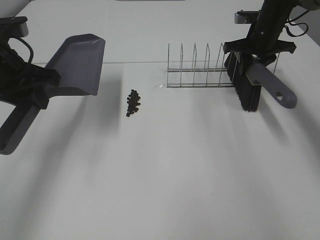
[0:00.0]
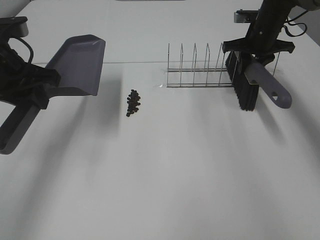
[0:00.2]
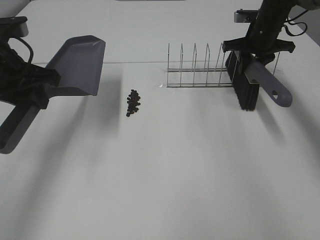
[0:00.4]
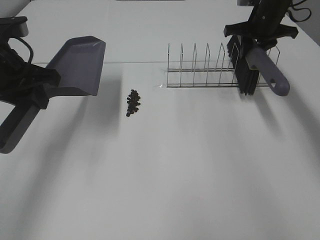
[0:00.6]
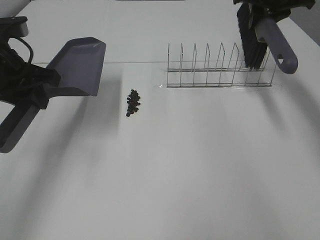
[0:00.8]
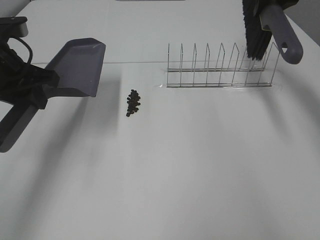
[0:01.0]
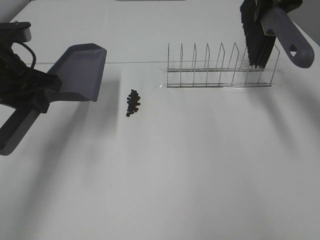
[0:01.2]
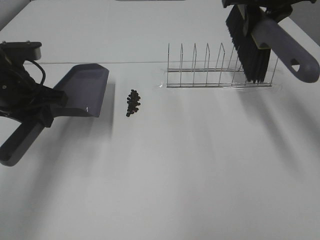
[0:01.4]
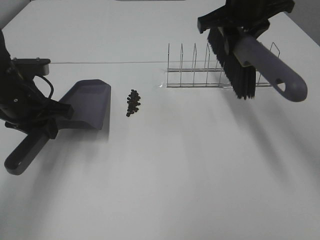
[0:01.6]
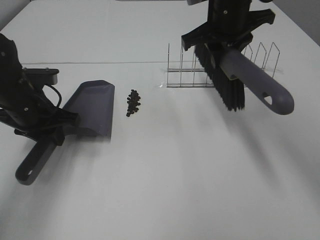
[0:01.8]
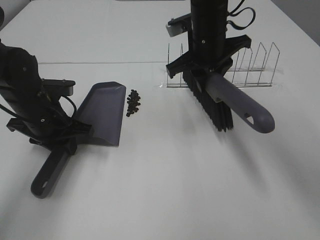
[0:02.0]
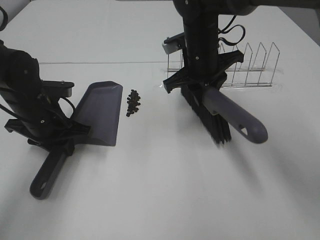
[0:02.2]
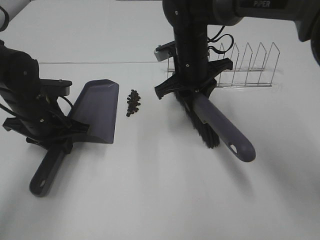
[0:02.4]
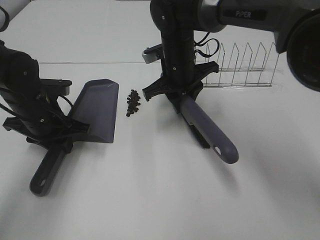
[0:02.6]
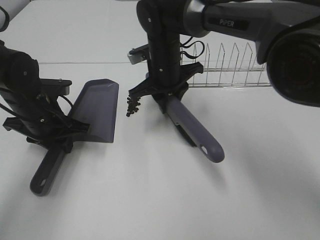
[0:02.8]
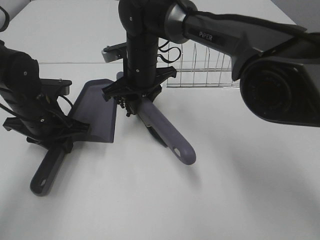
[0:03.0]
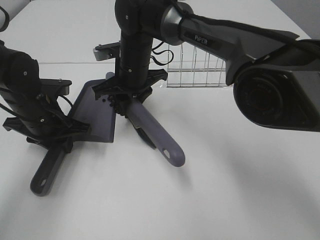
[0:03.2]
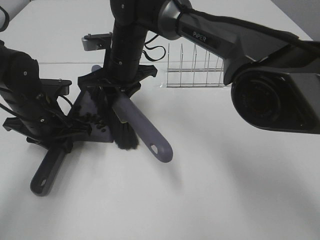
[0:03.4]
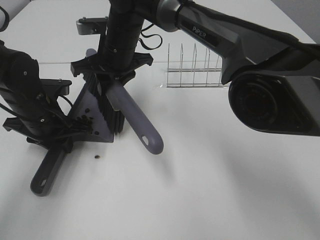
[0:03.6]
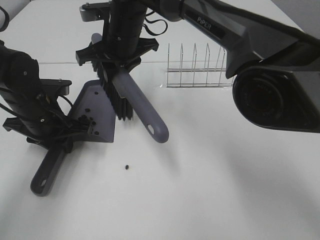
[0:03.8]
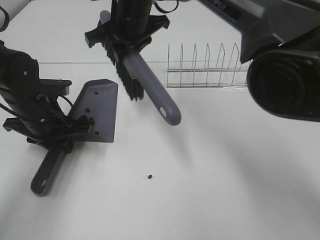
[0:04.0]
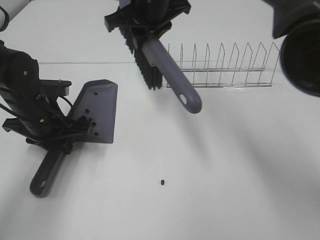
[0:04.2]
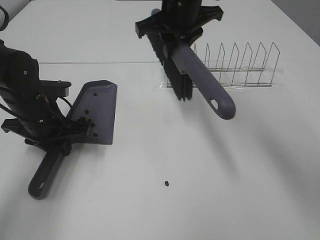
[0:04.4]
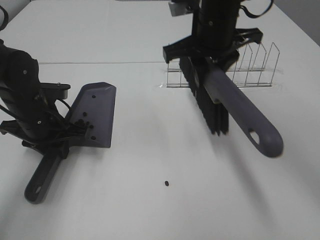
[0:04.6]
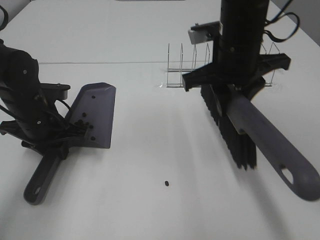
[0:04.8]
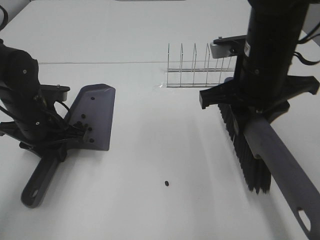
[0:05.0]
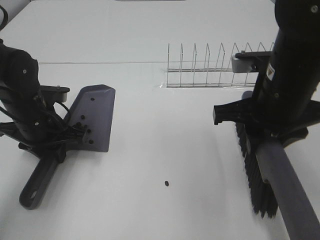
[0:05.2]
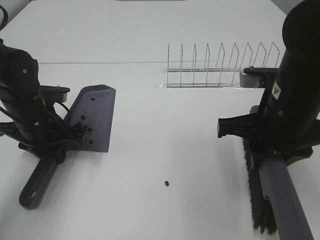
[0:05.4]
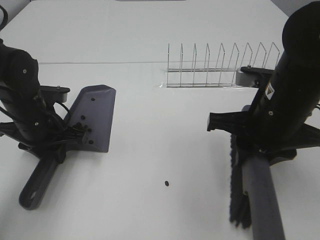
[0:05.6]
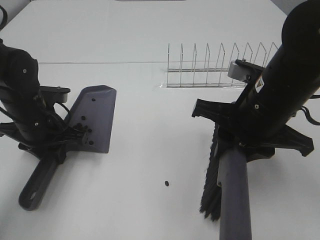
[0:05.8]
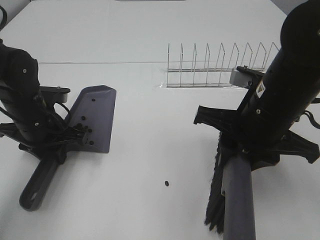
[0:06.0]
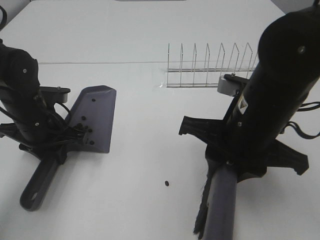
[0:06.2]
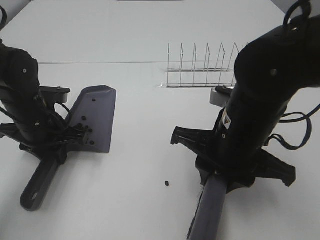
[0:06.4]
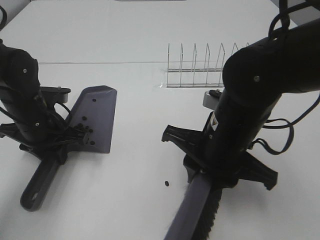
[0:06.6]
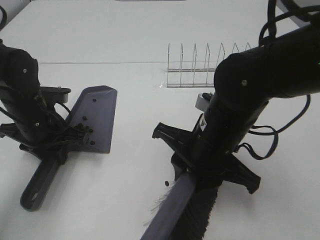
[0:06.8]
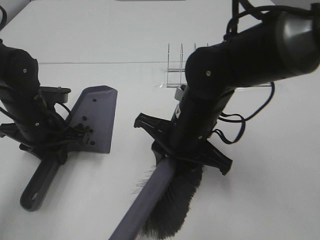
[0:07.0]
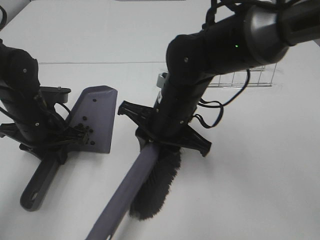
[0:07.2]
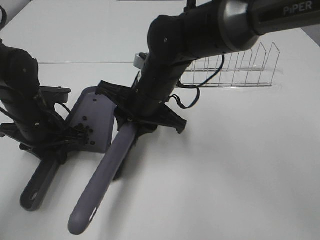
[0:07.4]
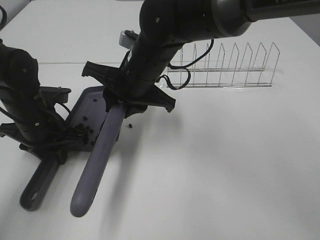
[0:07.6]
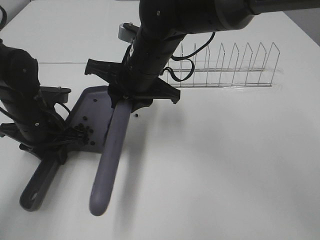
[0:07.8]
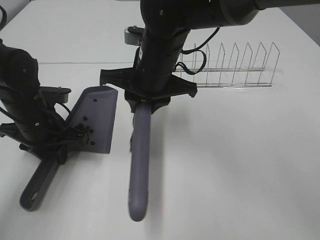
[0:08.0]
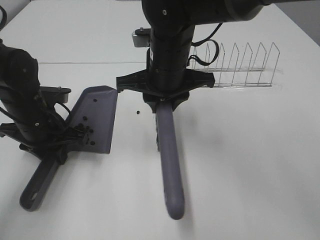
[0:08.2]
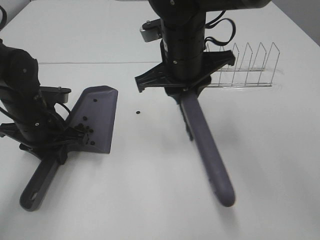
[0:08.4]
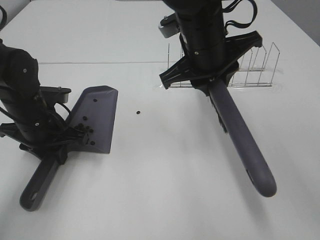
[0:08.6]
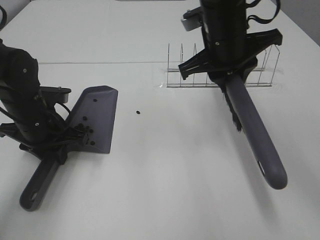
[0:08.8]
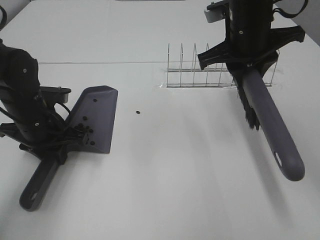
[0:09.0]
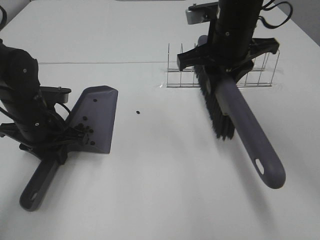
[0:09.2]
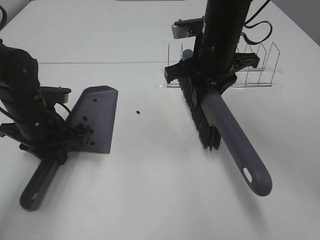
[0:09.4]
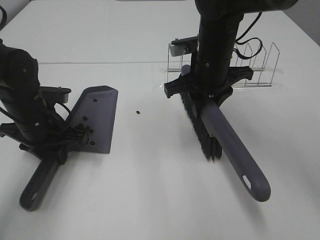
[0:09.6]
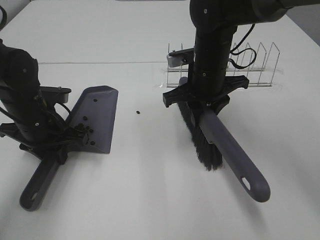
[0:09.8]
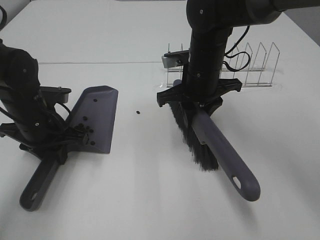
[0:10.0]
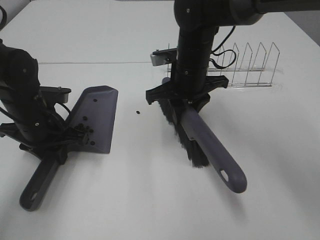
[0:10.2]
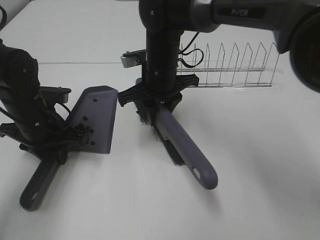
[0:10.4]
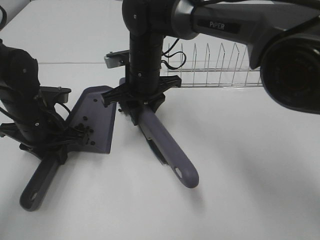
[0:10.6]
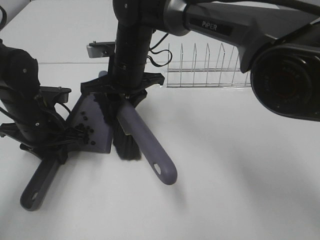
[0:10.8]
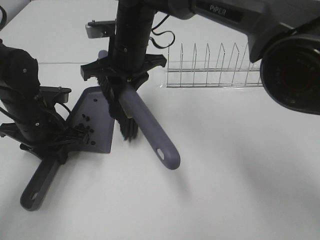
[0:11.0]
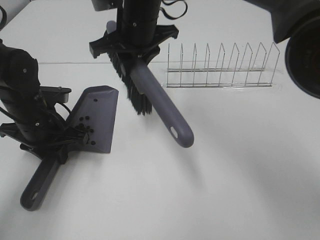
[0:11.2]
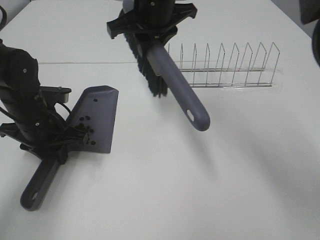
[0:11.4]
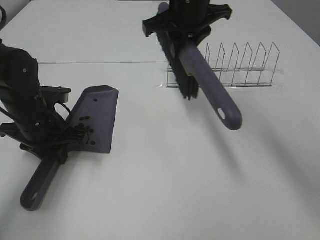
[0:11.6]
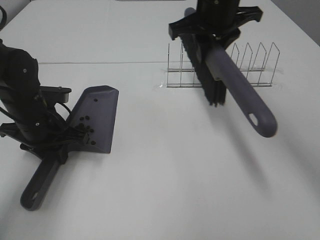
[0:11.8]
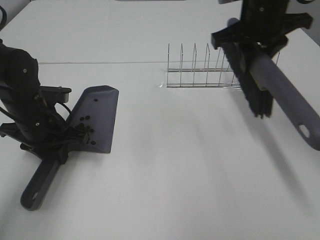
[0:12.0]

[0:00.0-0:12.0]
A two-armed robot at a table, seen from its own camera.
Task of the whole recording: Sweep Coffee Bean.
Step, 0:00.0 to 0:02.4: Left hand: move the dustpan to the left side of the coffee beans.
Step, 0:00.4 to 0:11.0: Right hand:sweep the coffee beans into the dustpan.
0:00.0 to 0:01.6: The right gripper shifts some 20 cm backward, upward and to the left. Meanwhile the left gripper travels downward by some 10 cm.
0:01.6 to 0:03.0: The left gripper ends up approximately 5 cm from where it was; the right gripper travels to the left and downward by about 20 cm.
0:03.0 to 0:04.4: The right gripper shifts roughly 15 cm upward and to the right.
0:04.4 to 0:06.0: The right gripper shifts some 20 cm backward and to the right.
0:06.0 to 0:07.6: The right gripper moves to the left and forward, approximately 20 cm.
0:07.6 to 0:09.0: The right gripper is displaced to the right and upward by about 15 cm.
0:09.0 to 0:10.4: The right gripper shifts some 15 cm to the left and downward.
0:10.4 to 0:12.0: The right gripper moves to the right and upward, about 20 cm.

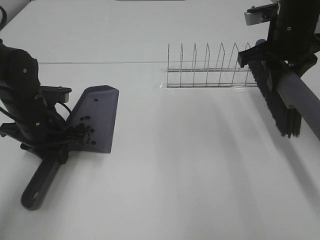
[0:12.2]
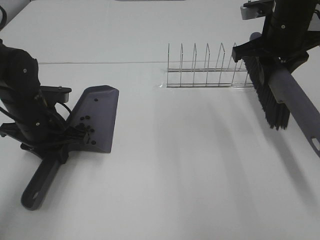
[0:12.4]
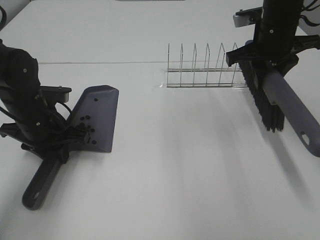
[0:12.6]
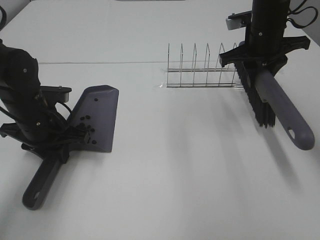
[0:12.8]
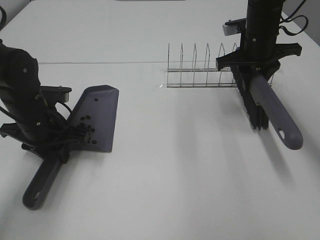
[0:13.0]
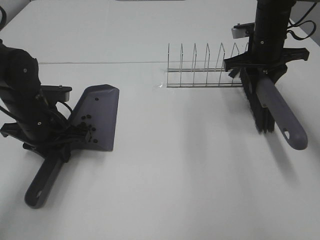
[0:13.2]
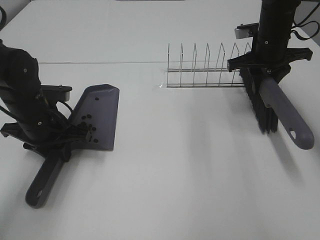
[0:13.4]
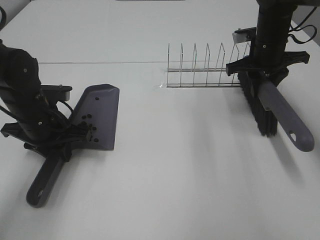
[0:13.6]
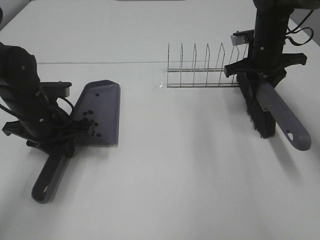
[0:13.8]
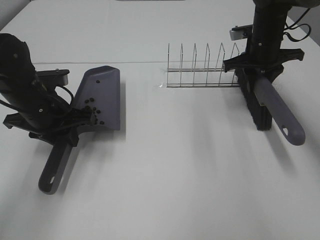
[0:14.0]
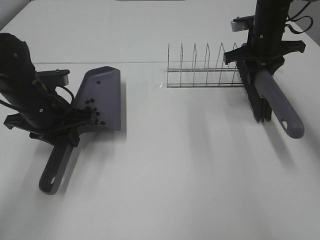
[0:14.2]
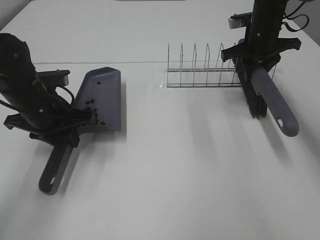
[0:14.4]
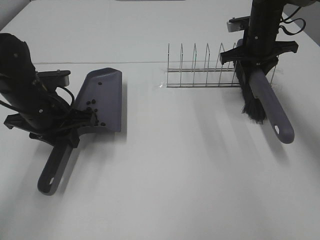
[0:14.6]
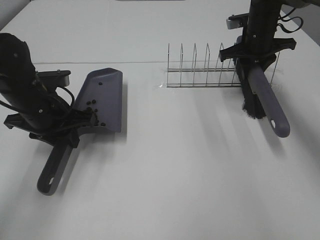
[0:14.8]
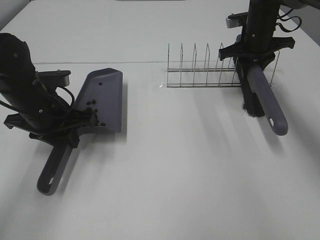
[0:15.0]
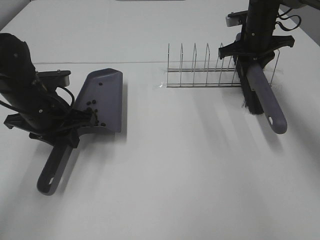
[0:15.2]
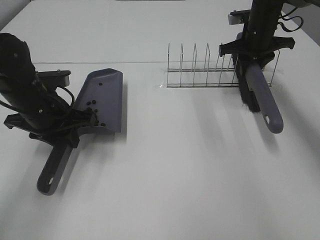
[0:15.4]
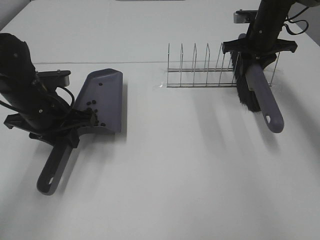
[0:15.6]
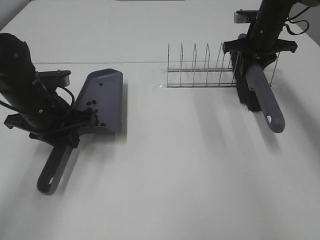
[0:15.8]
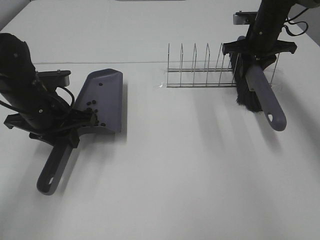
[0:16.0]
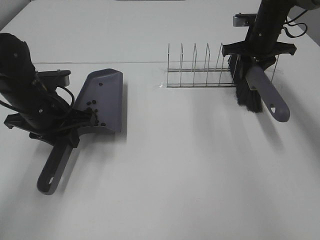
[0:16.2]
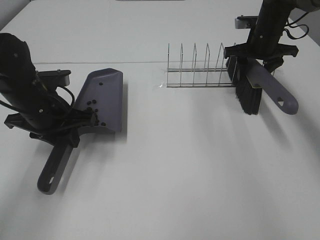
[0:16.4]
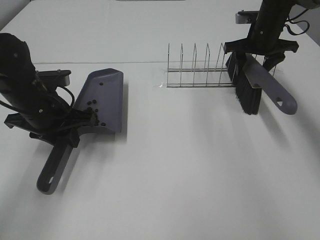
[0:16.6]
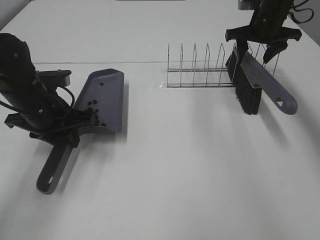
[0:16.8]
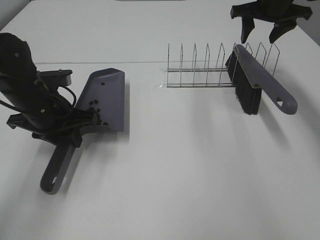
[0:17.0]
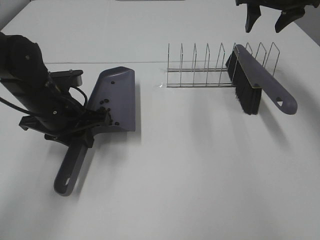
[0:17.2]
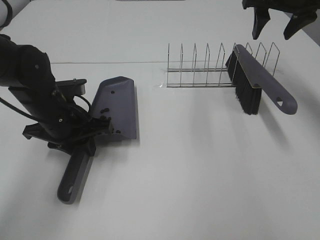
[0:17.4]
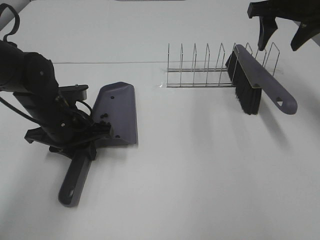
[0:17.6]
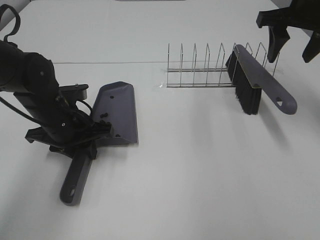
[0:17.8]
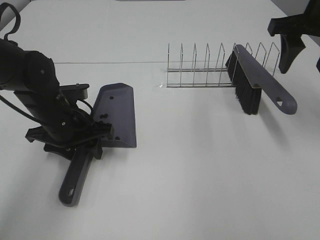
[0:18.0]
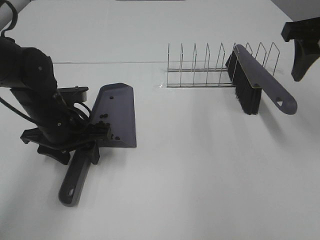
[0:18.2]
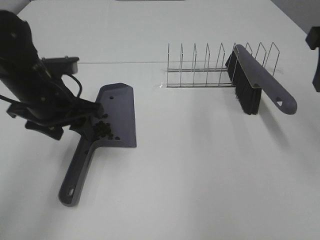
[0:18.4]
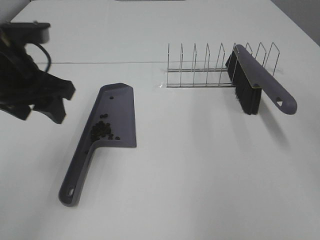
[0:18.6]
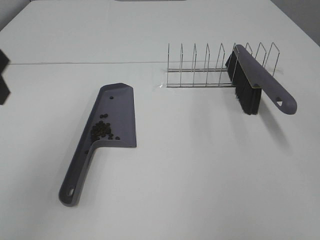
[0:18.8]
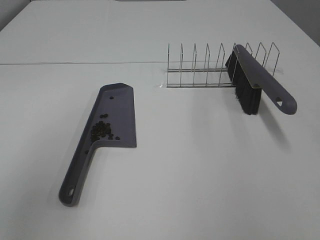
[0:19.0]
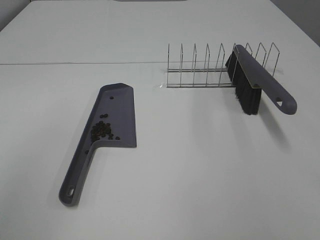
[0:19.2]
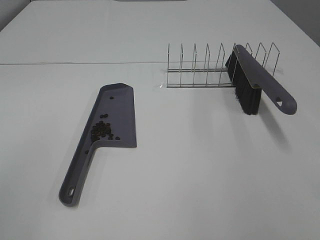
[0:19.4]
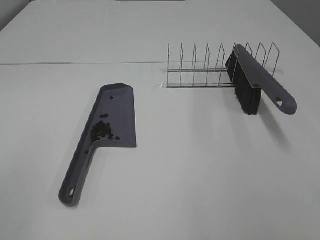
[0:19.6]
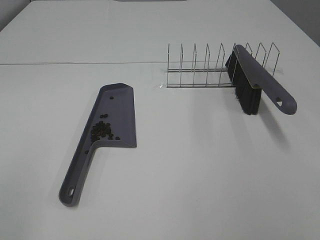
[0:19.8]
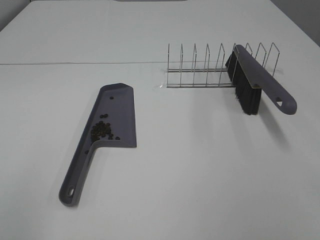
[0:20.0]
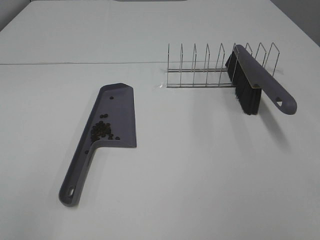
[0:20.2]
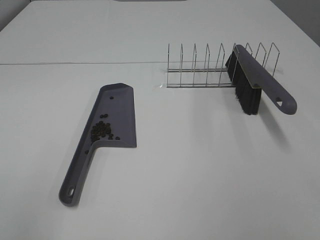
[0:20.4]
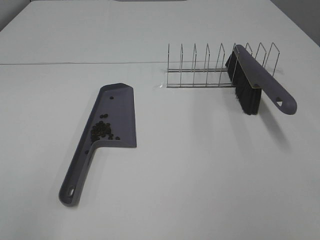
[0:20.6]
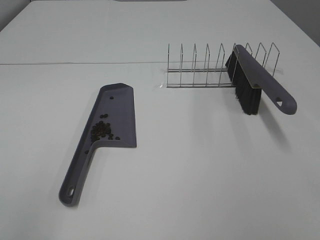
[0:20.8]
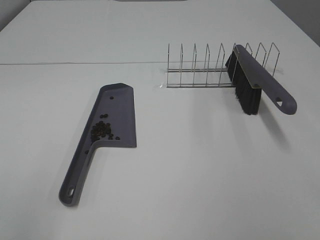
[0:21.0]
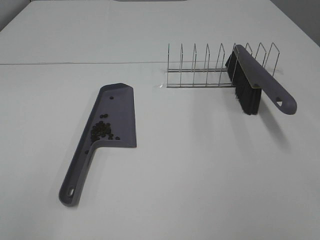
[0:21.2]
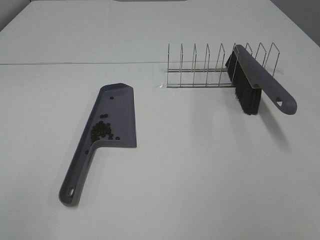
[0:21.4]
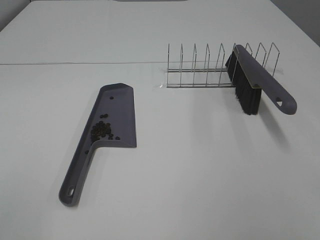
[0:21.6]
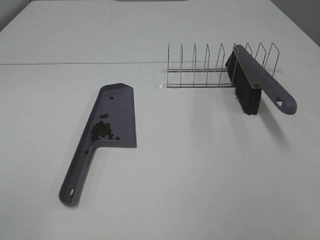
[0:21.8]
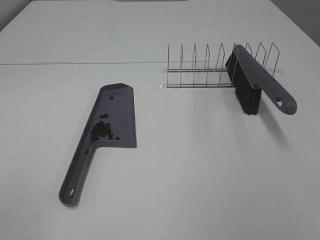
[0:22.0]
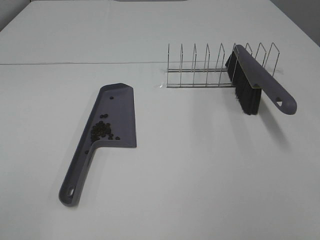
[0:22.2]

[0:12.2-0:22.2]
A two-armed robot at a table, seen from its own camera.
Task of the whole recording: Sweep Coffee Bean.
Step, 0:12.2 to 0:16.8: Right hand:place the broom on the rack.
Step, 0:17.0 to 0:18.2: Left hand:place the dustpan on the table.
0:12.2 to 0:13.6: The right gripper travels forward and downward by about 10 cm.
0:13.6 to 0:15.0: The right gripper heads forward, covering approximately 5 cm.
0:15.0 to 0:16.4: The right gripper opens up.
0:16.4 to 0:18.0: The left gripper opens its fingers; the right gripper is displaced backward and upward by about 20 cm.
0:18.0 to 0:19.4: The left gripper is displaced backward, upward and to the left by approximately 40 cm. The right gripper travels backward by about 35 cm.
